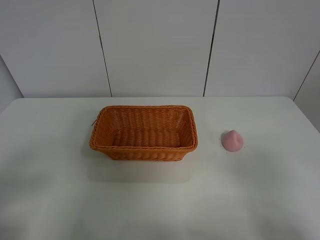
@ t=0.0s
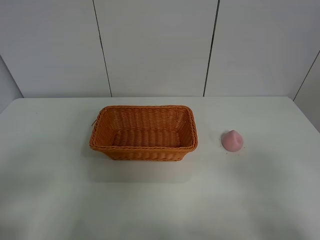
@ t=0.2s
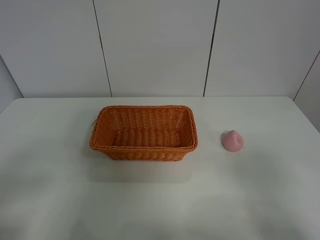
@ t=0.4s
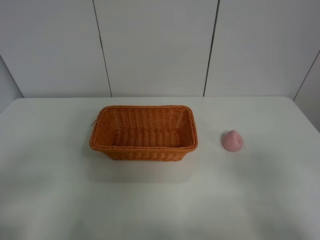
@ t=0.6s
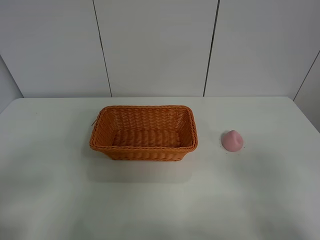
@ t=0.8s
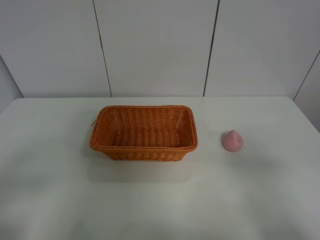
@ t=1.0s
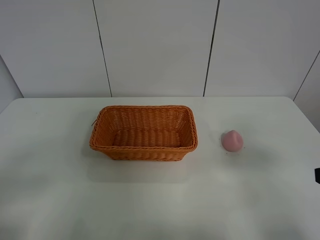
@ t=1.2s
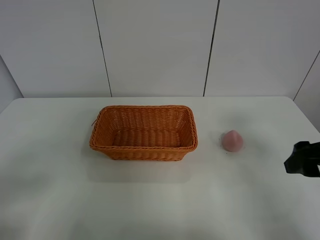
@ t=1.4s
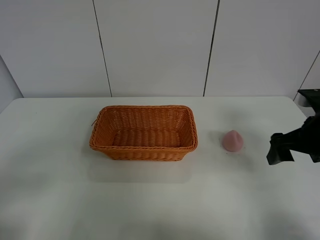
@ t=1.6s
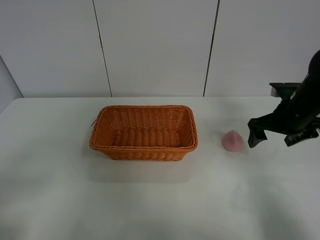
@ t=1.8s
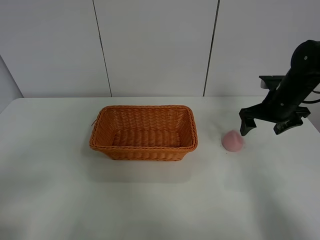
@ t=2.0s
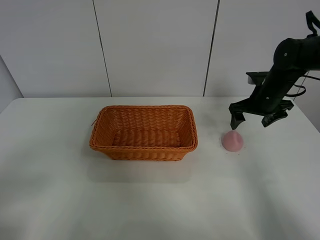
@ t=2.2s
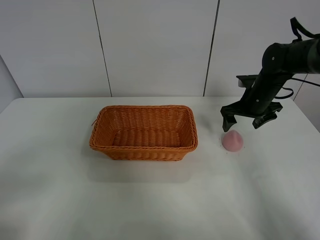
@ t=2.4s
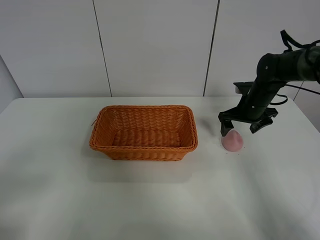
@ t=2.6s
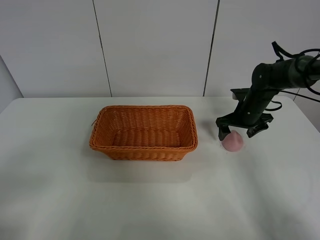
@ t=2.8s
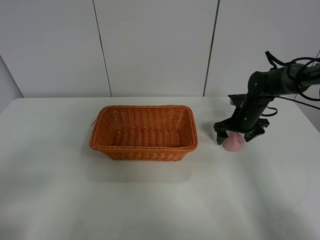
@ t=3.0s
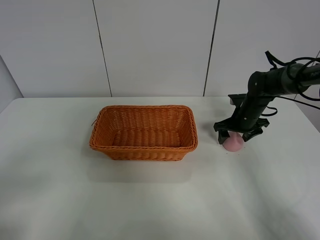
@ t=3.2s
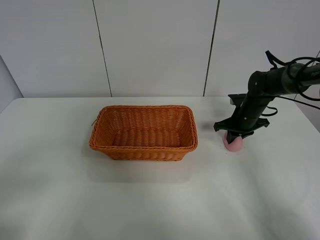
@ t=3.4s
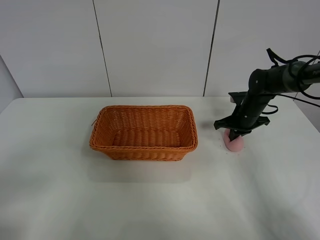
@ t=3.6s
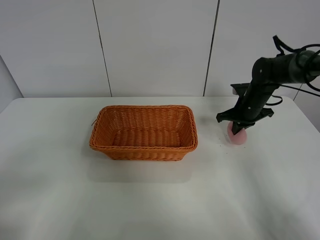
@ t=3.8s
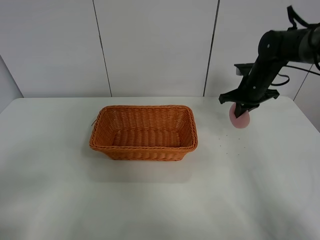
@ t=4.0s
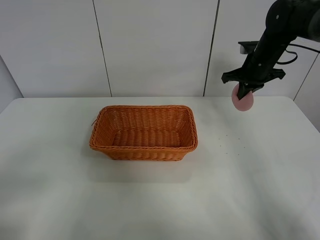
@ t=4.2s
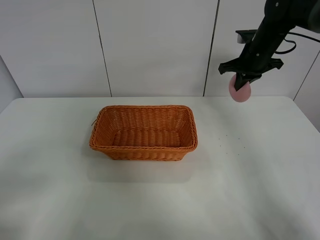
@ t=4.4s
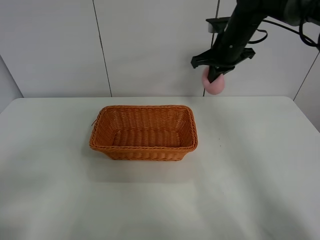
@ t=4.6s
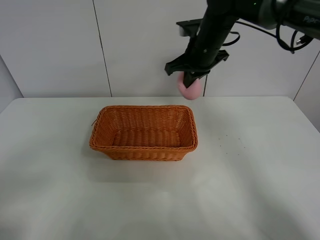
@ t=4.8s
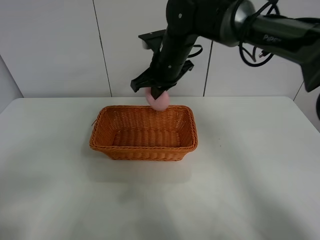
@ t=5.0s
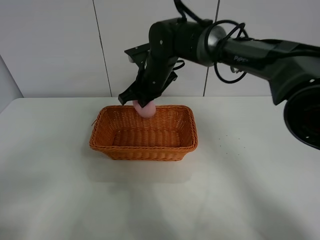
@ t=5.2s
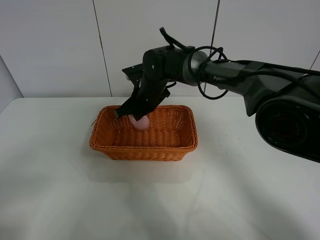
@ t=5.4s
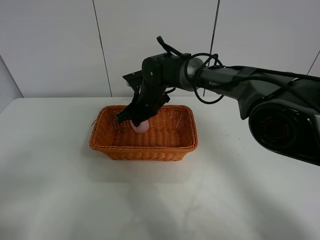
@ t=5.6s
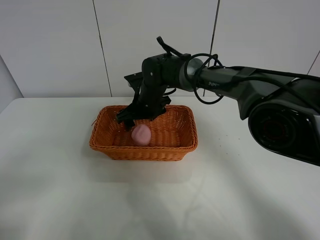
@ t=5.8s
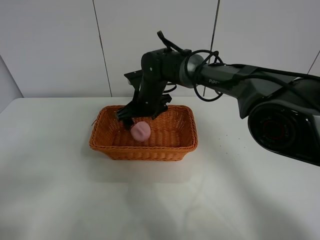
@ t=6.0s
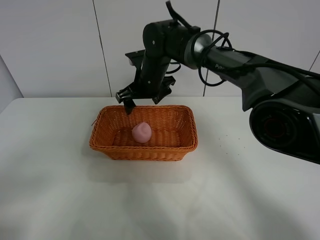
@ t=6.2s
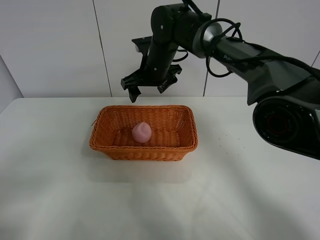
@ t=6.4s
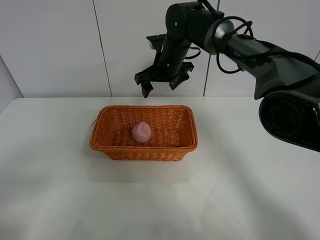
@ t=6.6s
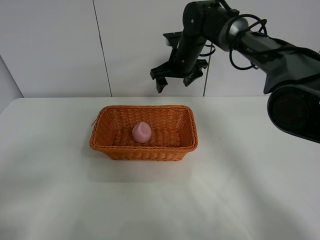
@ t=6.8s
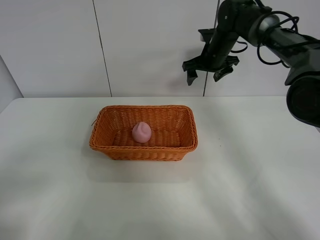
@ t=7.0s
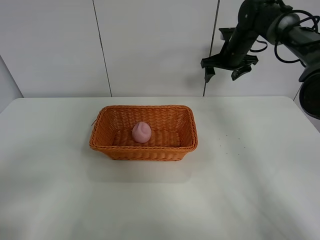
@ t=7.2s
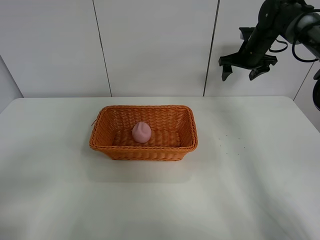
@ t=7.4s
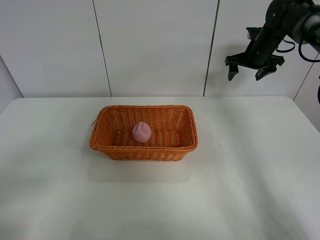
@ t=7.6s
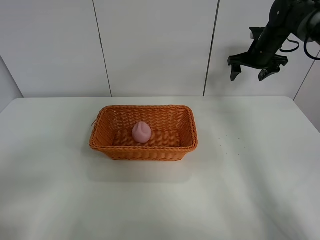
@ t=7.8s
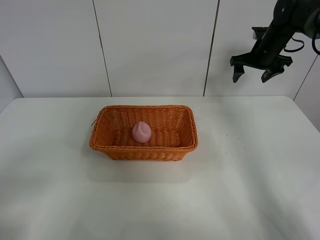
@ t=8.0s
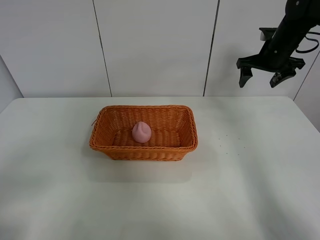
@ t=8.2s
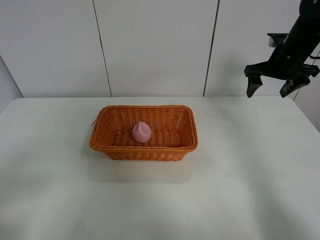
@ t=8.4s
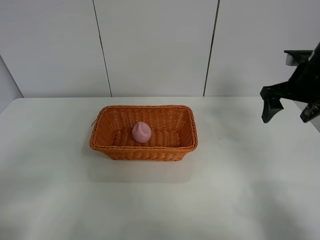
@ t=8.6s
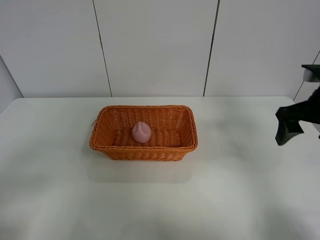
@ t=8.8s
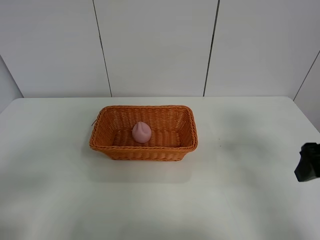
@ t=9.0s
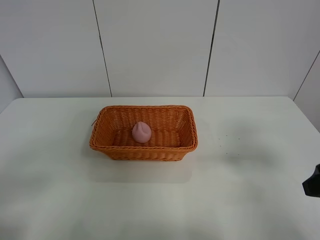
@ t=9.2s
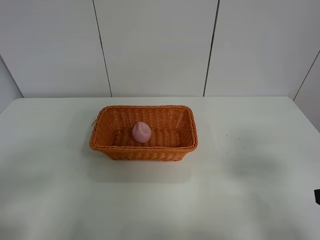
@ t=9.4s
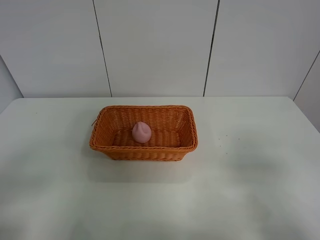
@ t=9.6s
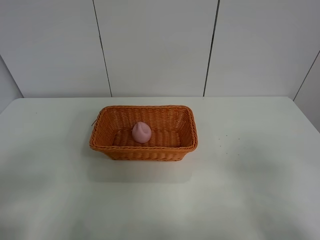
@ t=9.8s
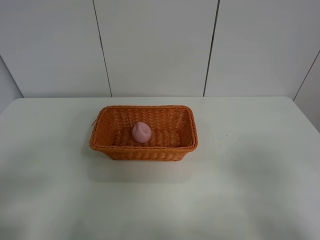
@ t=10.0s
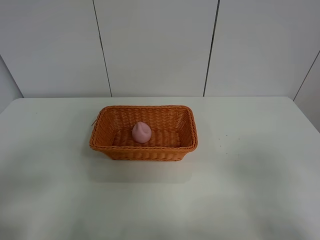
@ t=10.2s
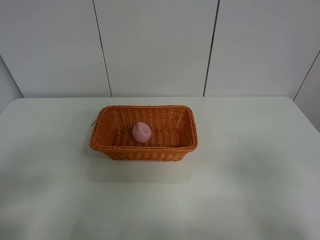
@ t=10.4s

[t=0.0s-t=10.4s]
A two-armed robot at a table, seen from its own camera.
Step, t=0.0s to t=3.6s: Grasp the peach with right gripper.
Step, t=3.8s to t=6.4s: Place the peach in the basket with right gripper.
t=0.0s to t=1.4s: The right gripper goes roughly 20 cm forward.
t=1.4s to t=3.0s: The right gripper moves forward and downward, about 25 cm.
t=3.0s to t=4.4s: The right gripper moves upward, some 15 cm, and closes up.
t=4.4s to t=6.0s: The right gripper goes about 25 cm to the left and downward, and opens.
t=6.0s to t=7.4s: The right gripper is displaced to the right by some 30 cm.
t=7.4s to t=9.0s: The right gripper moves backward, about 35 cm.
t=9.0s to t=10.4s: The right gripper goes about 15 cm backward.
